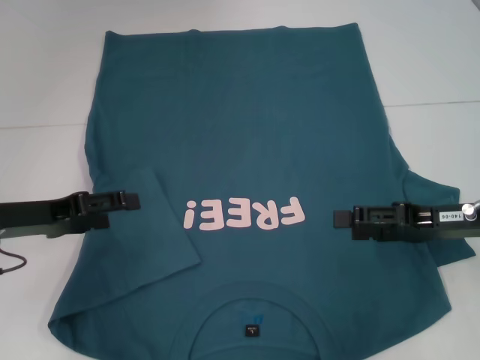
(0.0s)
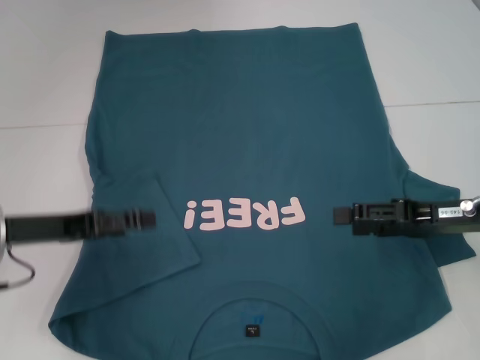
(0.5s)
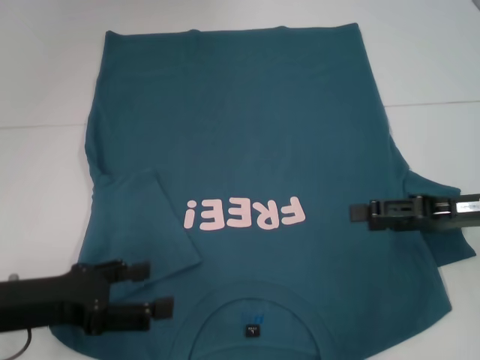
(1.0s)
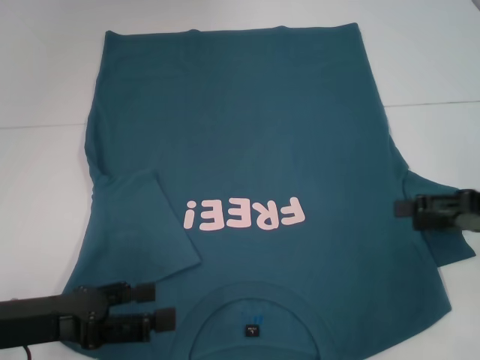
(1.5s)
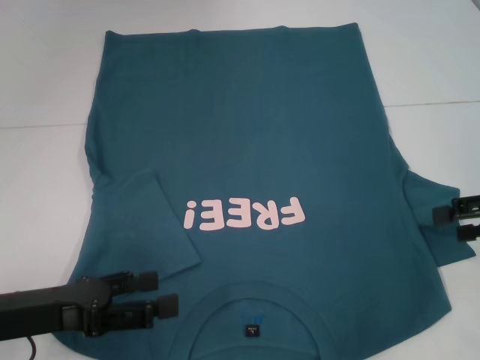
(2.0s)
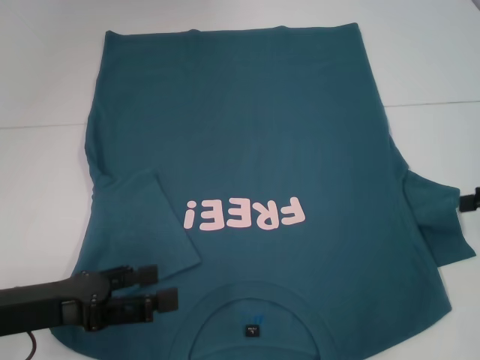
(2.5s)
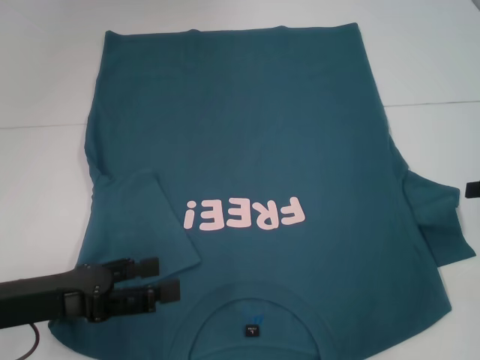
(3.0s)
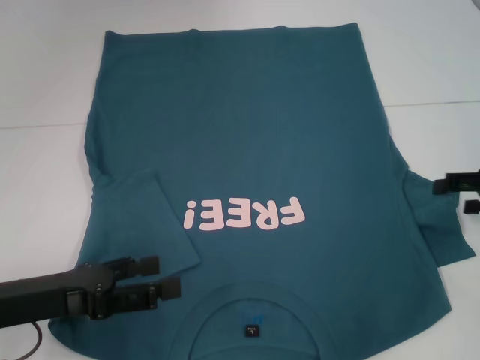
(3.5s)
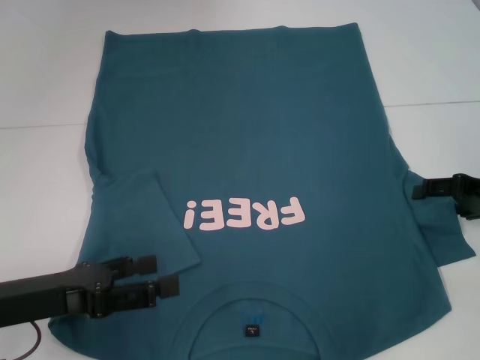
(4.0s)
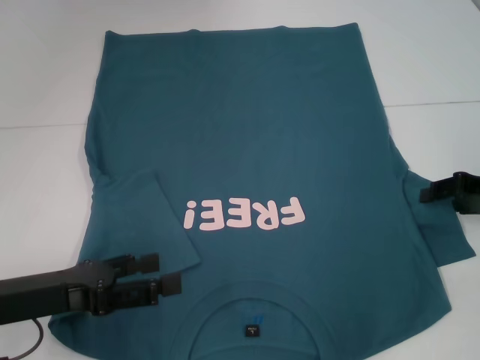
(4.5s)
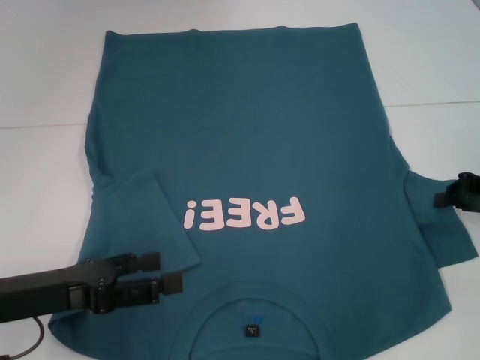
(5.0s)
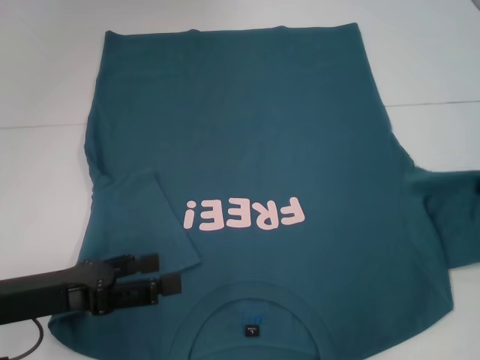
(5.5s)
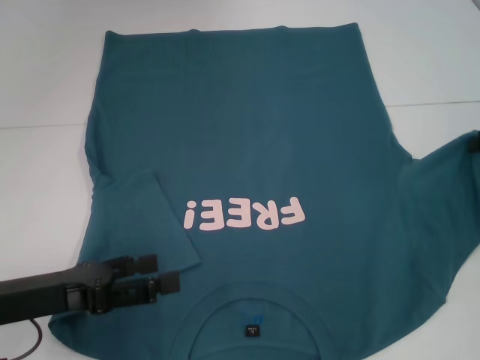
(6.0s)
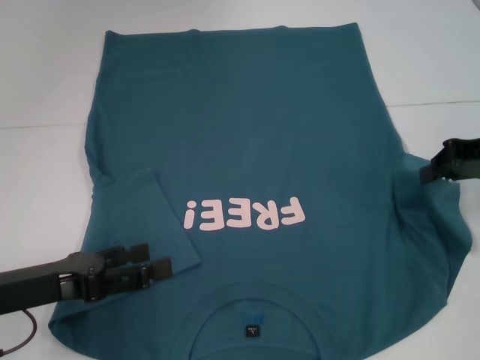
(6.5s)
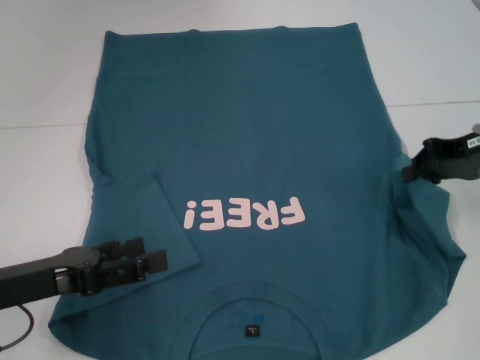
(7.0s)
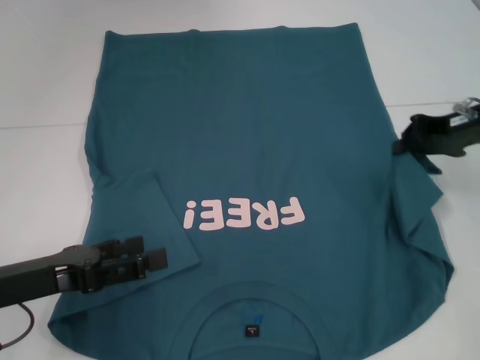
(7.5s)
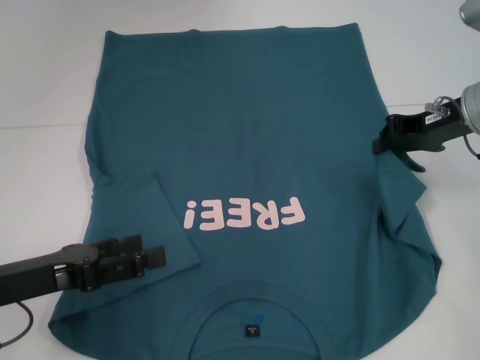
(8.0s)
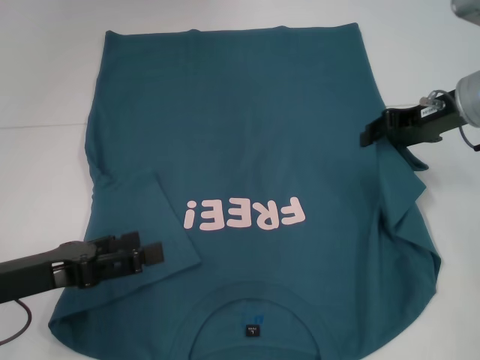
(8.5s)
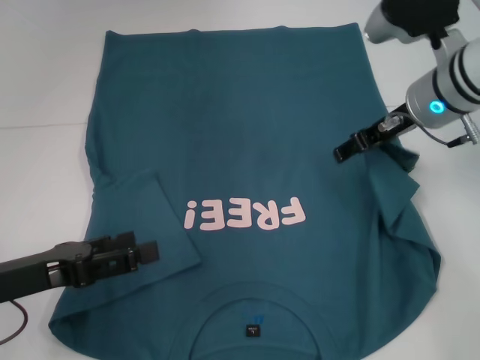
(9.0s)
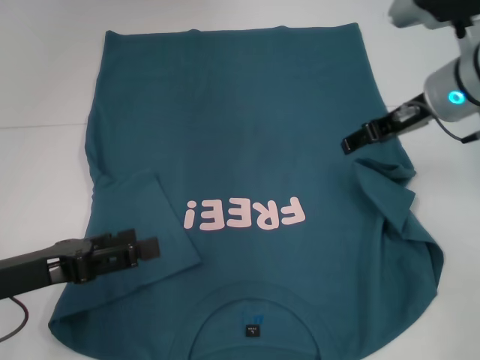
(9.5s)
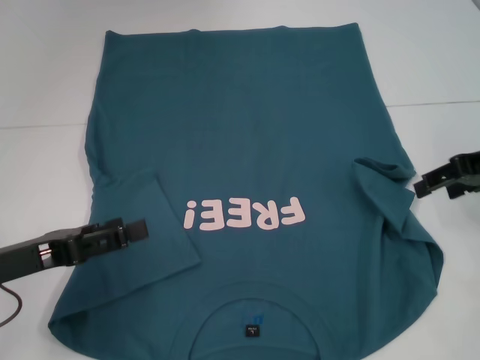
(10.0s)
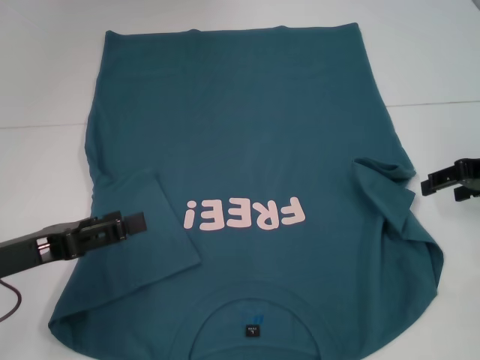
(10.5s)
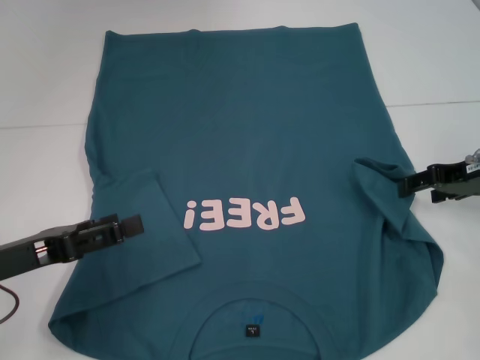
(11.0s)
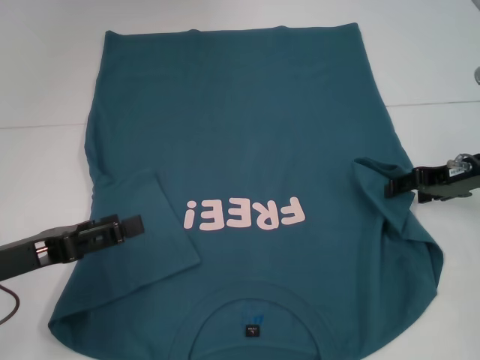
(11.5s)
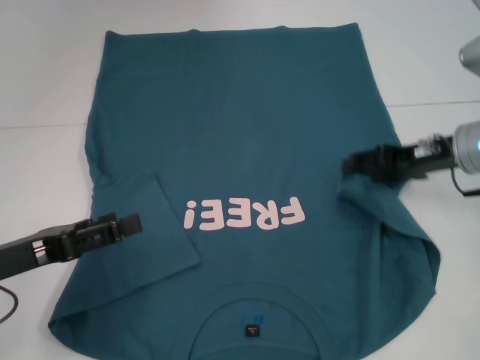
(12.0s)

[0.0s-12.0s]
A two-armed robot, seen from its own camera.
0.0s to 2.0s: The right gripper goes about 10 cm to the right and upward, while the left gripper heads backward, covering roughly 10 cm.
2.0s to 4.0s: The right gripper travels downward by approximately 5 cm.
4.0s to 6.0s: The right gripper is displaced upward by roughly 5 cm, and closes.
6.0s to 8.0s: The right gripper goes about 10 cm to the left.
8.0s to 10.0s: The right gripper changes place by roughly 5 cm, and opens up.
10.0s to 12.0s: The right gripper travels downward by roughly 5 cm.

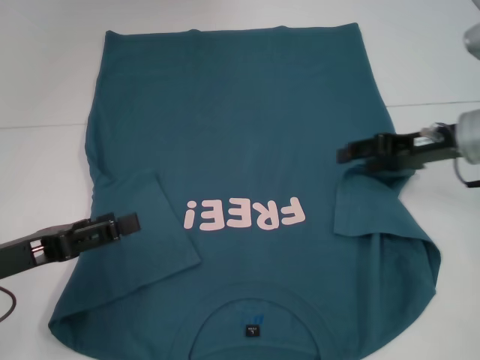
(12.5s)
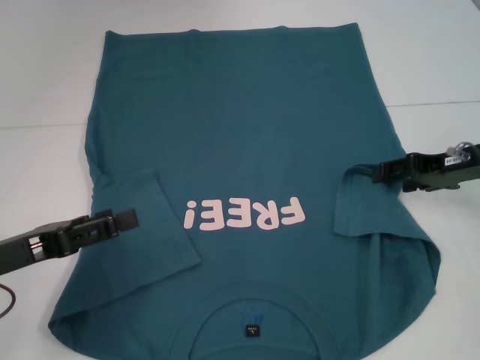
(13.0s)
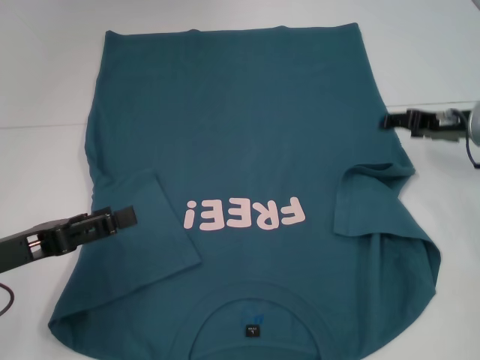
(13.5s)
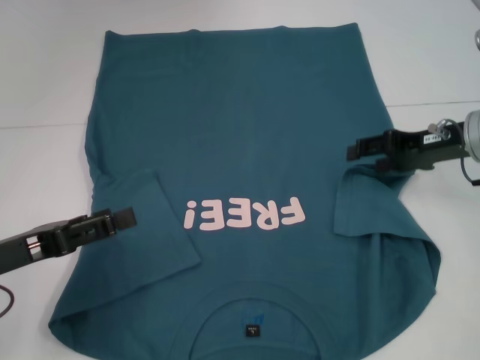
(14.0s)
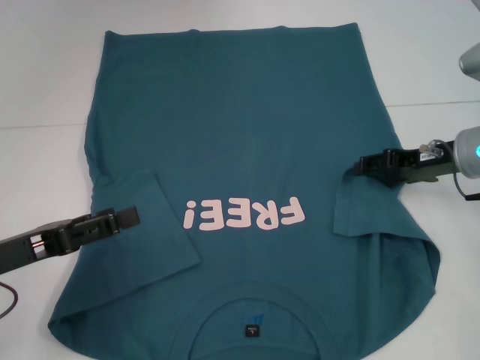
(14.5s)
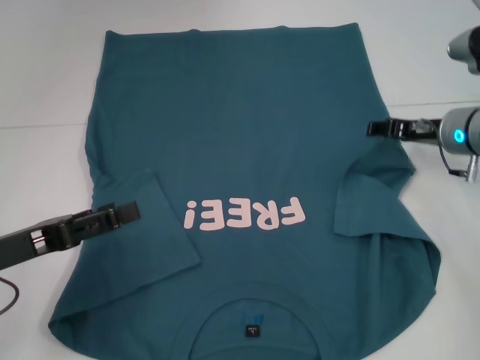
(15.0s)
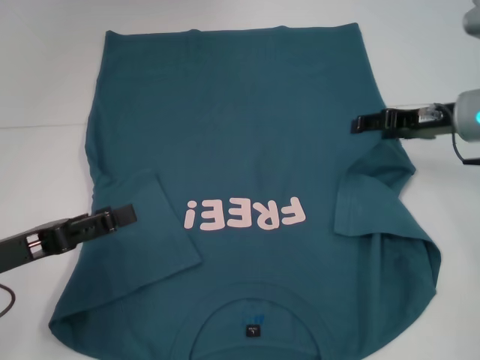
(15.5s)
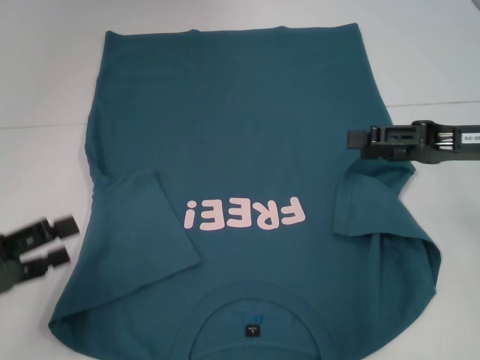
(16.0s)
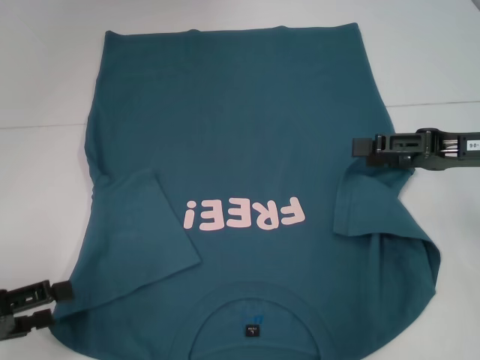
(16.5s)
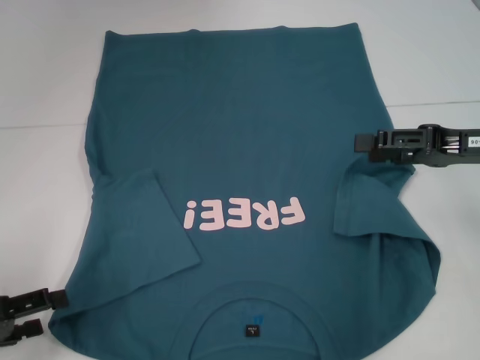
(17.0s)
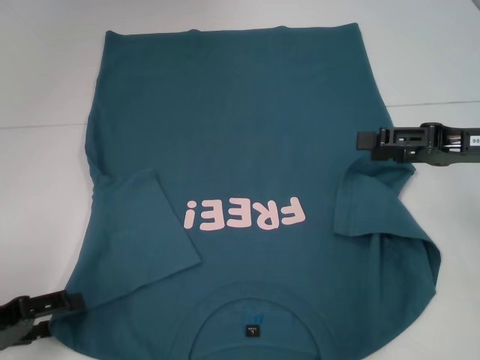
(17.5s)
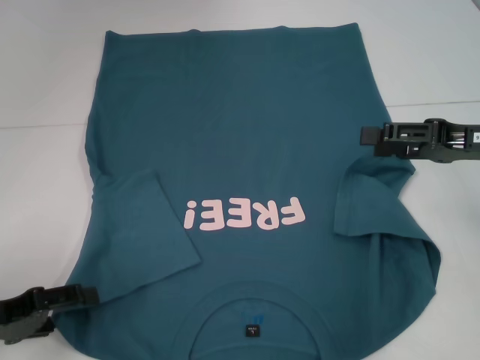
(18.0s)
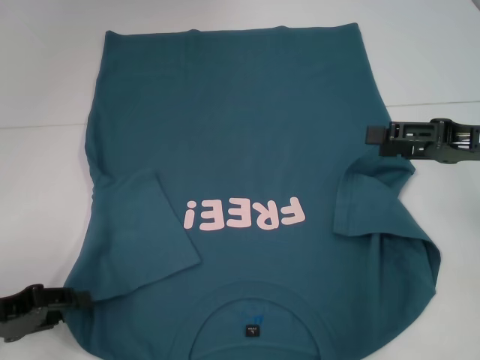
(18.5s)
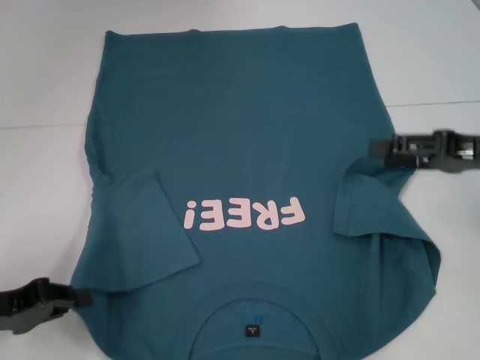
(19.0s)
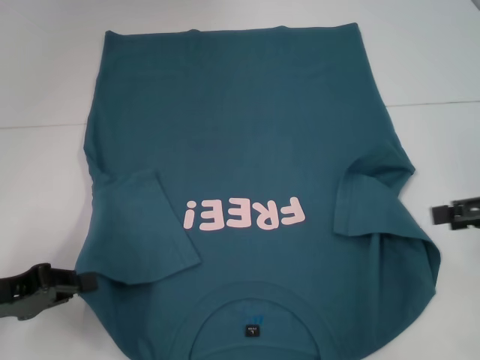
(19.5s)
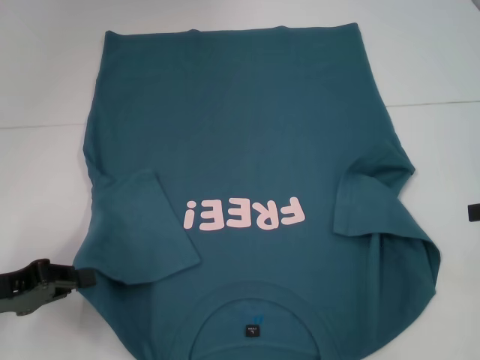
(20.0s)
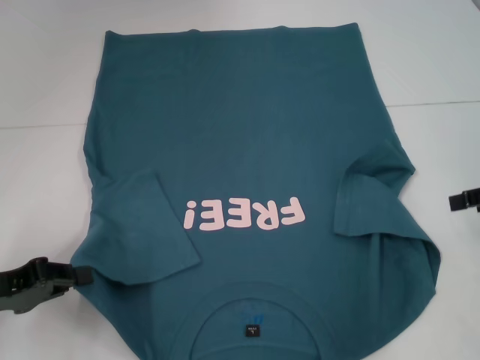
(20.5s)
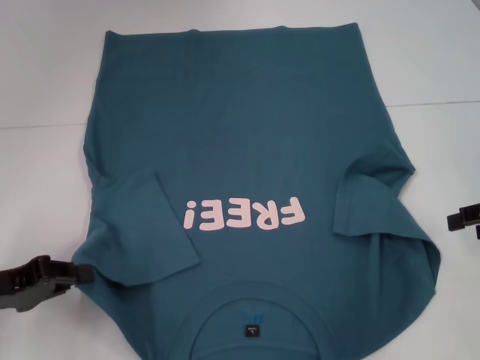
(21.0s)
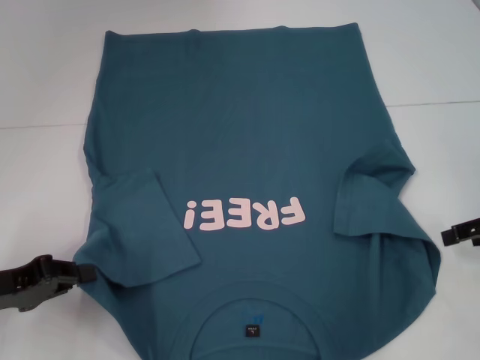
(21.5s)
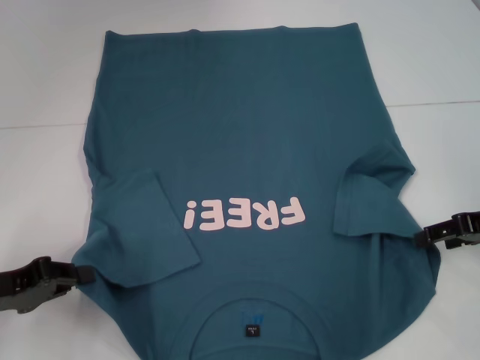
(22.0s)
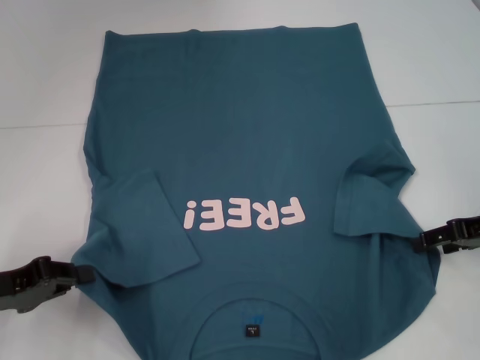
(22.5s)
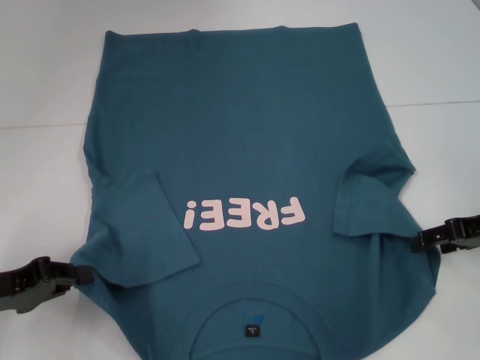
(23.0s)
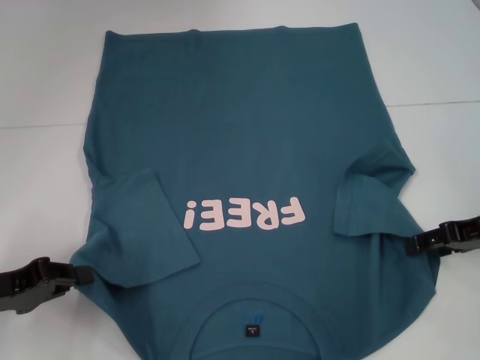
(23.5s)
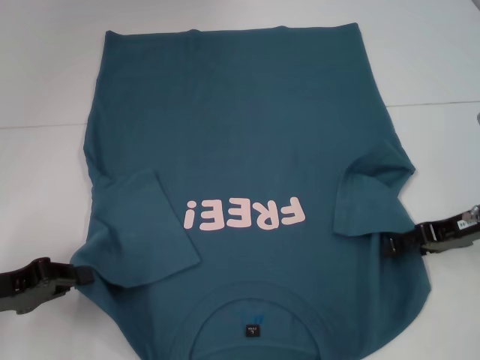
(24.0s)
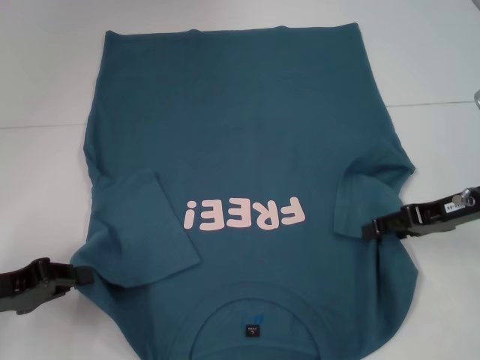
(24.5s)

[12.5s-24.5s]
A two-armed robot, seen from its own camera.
Step, 12.5s to 15.5s: Fold the bottom right sleeve to the right.
Step, 16.0s to 19.0s: Grab the bottom left corner with your left hand.
14.5s to 16.5s: The right gripper heads backward and upward, covering approximately 10 cm. Meanwhile the left gripper goes about 5 cm to the left.
16.5s to 18.5s: The left gripper closes its fingers.
18.5s to 20.5s: The right gripper is displaced to the right by some 5 cm. Meanwhile the left gripper closes up.
20.5s to 22.5s: The right gripper ends up roughly 5 cm from where it was.
22.5s to 24.5s: The grippers make only small movements.

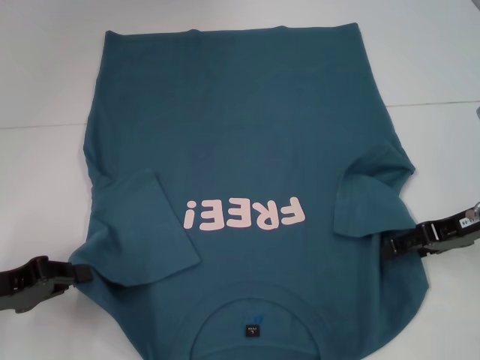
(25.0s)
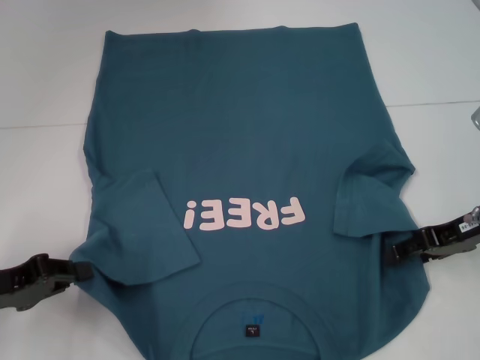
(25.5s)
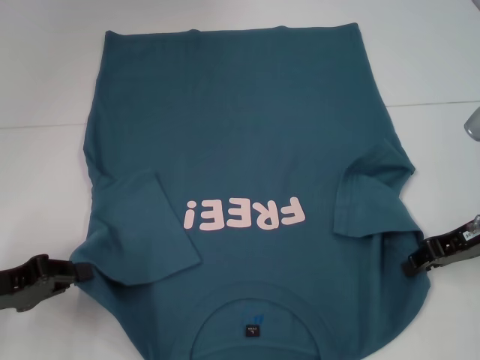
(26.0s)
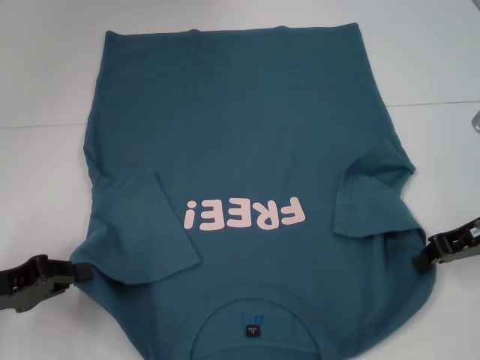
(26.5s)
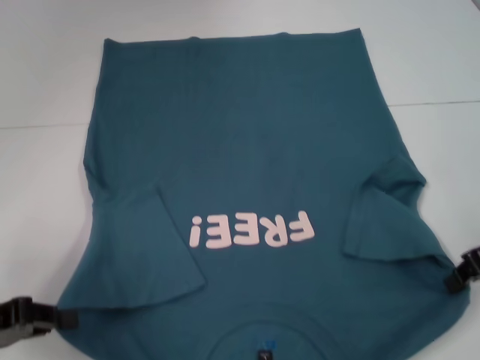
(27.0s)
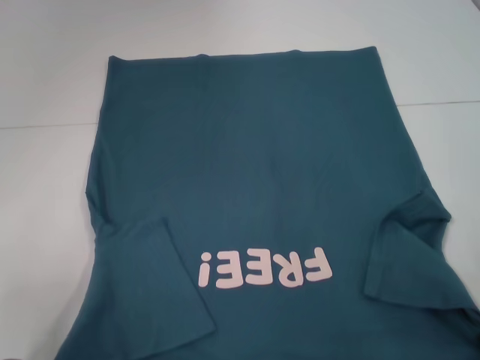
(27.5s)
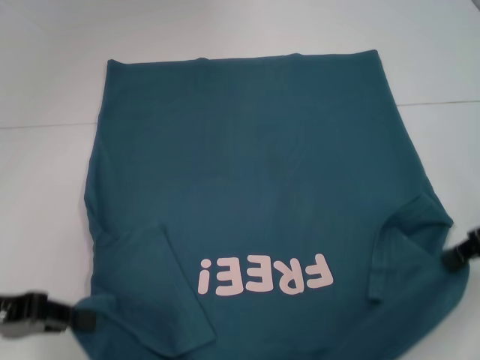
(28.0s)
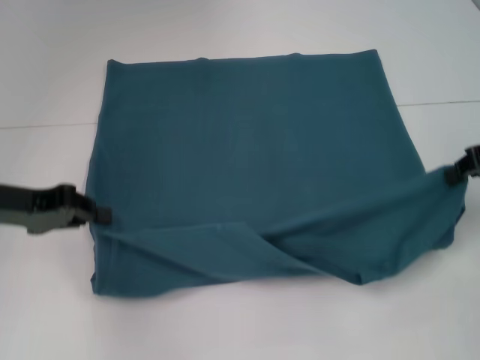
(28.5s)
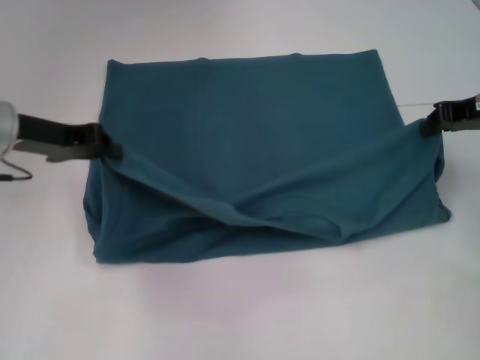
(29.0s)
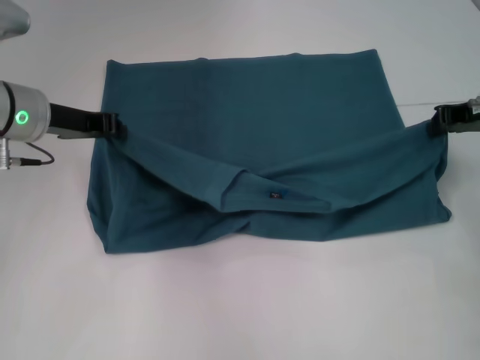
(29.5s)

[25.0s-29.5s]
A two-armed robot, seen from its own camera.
25.0s to 27.0s: The right gripper closes up.
27.0s to 29.5s: The left gripper goes about 20 cm forward and to the right; the right gripper travels forward by approximately 10 cm.
